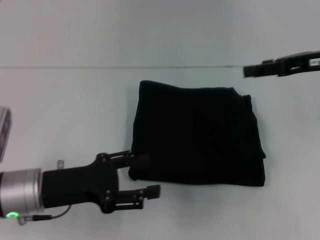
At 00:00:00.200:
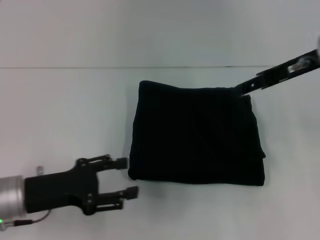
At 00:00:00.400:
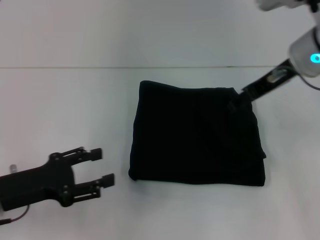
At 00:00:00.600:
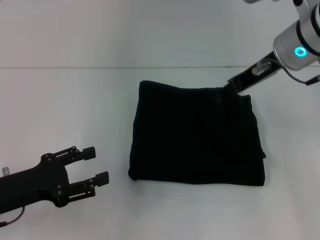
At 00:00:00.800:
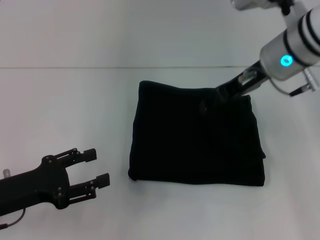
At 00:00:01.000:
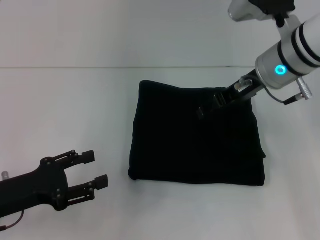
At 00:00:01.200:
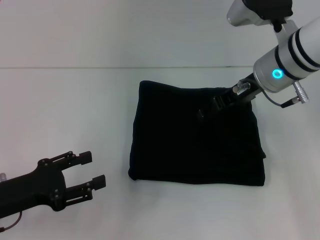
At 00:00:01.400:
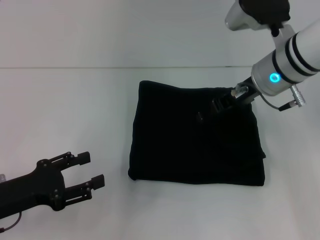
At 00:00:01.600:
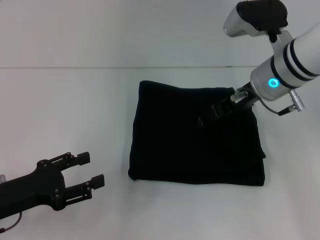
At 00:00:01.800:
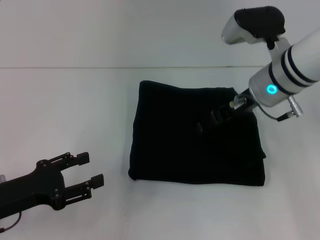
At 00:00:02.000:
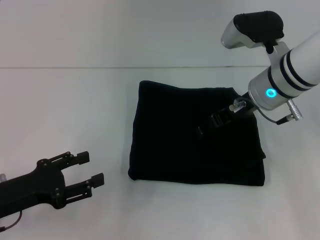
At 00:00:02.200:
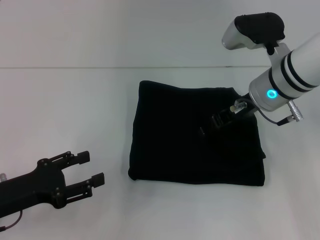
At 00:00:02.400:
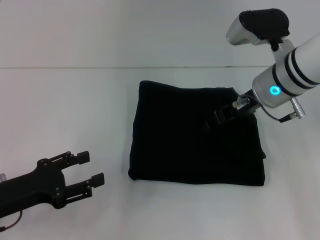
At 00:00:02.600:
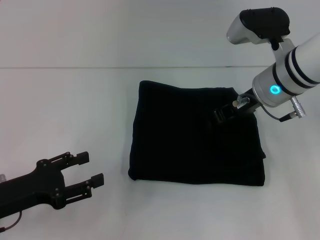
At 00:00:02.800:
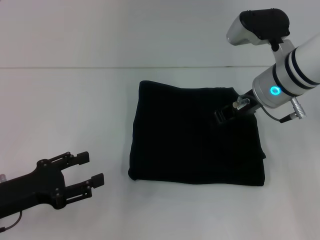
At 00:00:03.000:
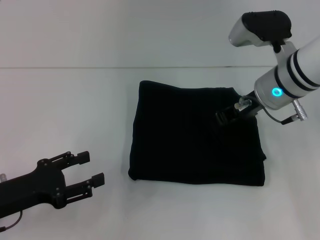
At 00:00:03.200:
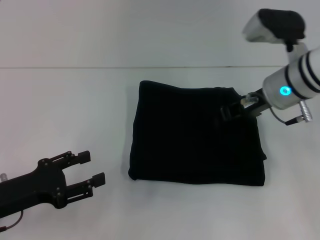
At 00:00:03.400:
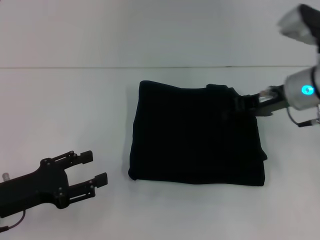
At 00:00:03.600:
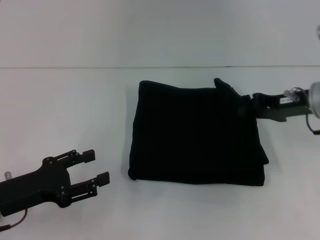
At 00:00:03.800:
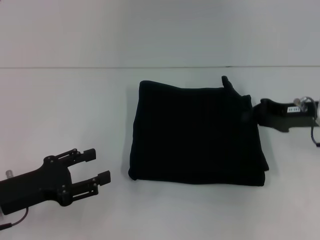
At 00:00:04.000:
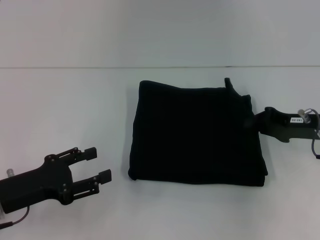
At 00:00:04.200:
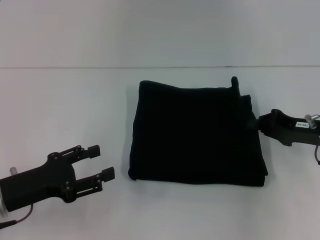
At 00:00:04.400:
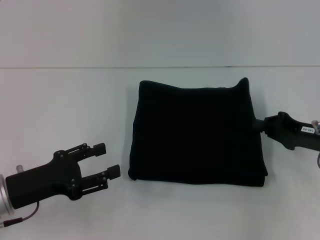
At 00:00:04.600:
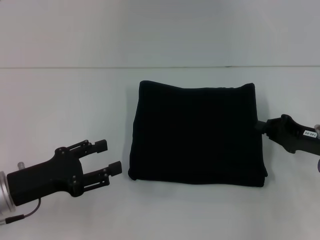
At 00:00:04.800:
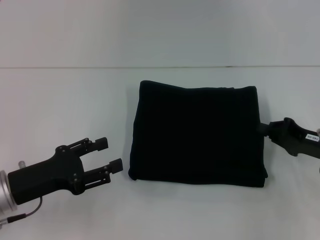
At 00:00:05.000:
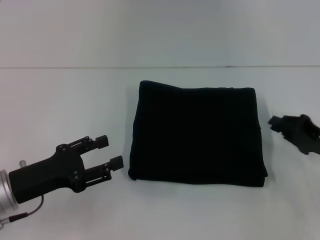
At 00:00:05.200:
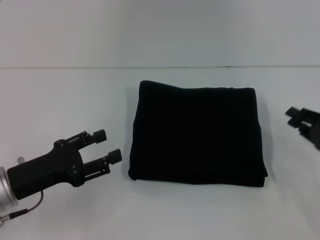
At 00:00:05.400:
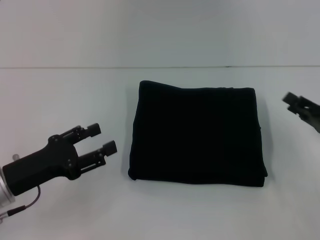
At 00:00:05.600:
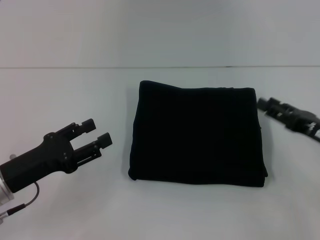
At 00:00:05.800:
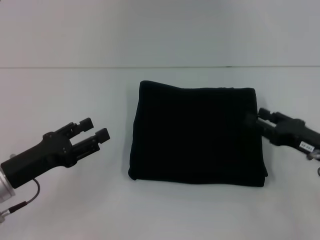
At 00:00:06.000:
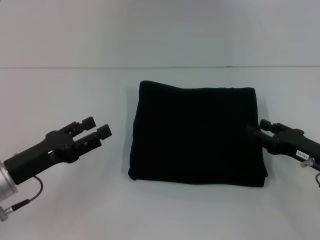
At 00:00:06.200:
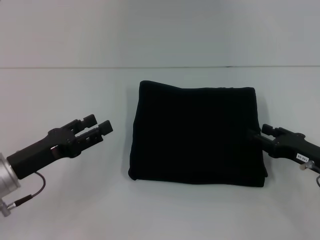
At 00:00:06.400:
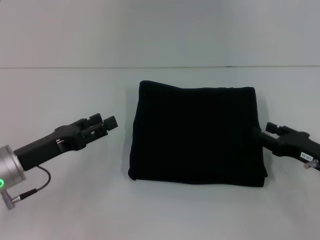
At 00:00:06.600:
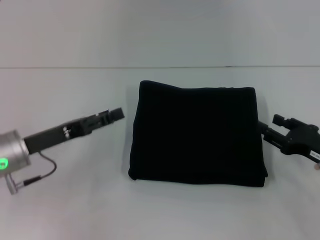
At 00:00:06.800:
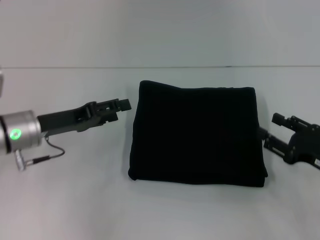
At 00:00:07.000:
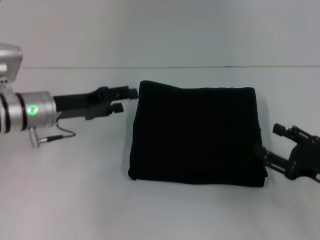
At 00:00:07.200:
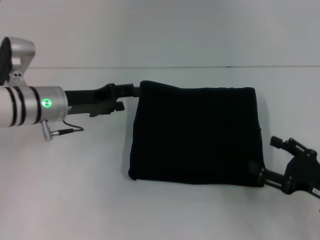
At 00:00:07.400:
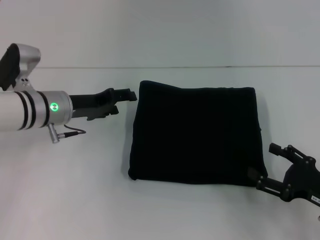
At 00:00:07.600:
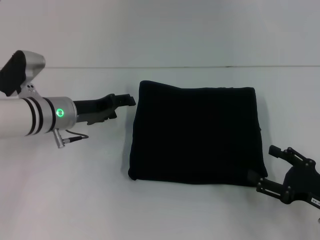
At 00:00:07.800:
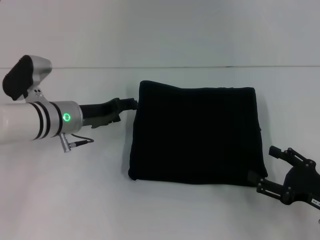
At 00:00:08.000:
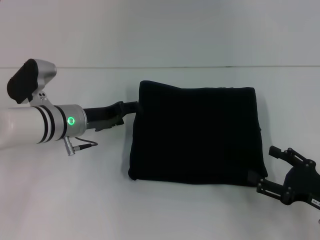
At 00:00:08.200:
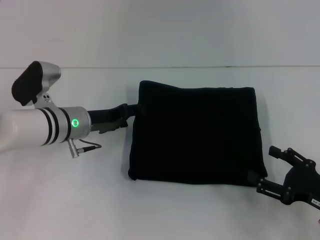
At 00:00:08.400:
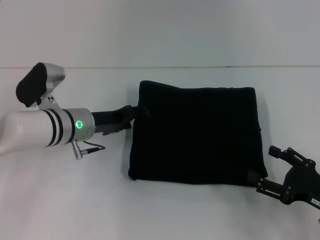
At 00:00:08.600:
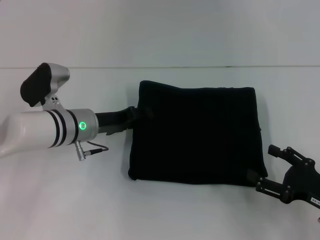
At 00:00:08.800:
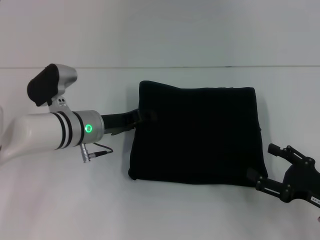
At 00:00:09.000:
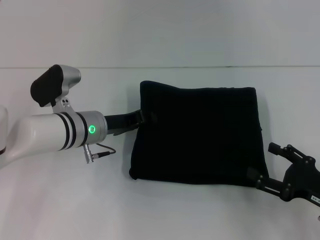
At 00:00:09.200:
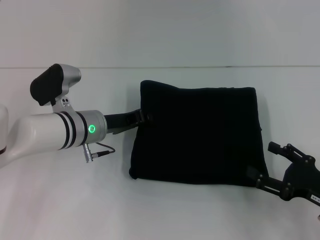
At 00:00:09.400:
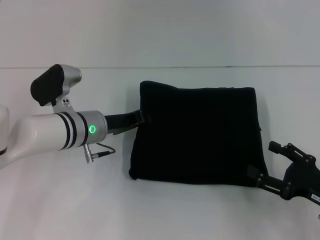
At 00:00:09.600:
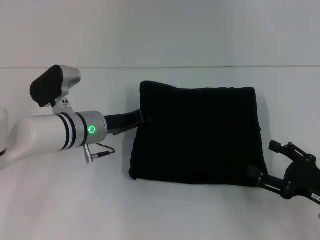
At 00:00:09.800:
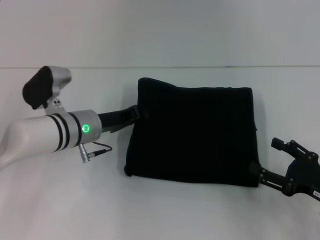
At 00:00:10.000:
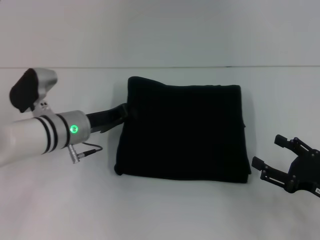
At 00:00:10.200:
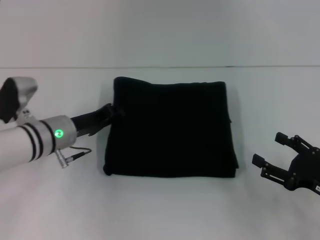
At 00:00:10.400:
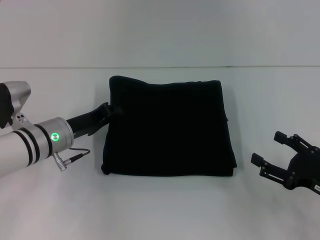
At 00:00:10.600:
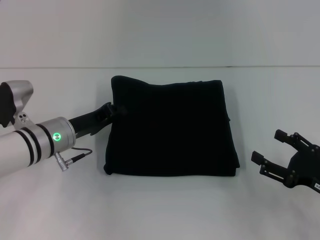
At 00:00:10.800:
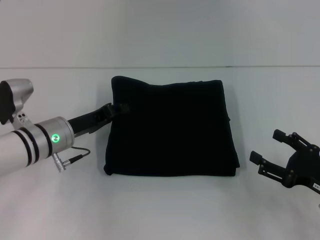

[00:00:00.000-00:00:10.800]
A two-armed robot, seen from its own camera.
00:00:00.000 to 00:00:01.600: The left gripper goes some 5 cm to the left, while the right gripper moves to the left, about 10 cm.
00:00:01.600 to 00:00:03.000: The right gripper closes its fingers.
00:00:03.000 to 00:00:04.600: The right gripper heads to the right, downward and backward, covering approximately 20 cm.
00:00:04.600 to 00:00:06.200: The right gripper opens.
00:00:06.200 to 00:00:07.800: The left gripper goes some 15 cm forward and to the right, while the right gripper moves backward, approximately 5 cm.
00:00:07.800 to 00:00:09.200: The left gripper closes its fingers.
00:00:09.200 to 00:00:10.800: The left gripper travels to the left by roughly 5 cm.

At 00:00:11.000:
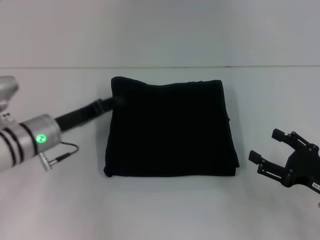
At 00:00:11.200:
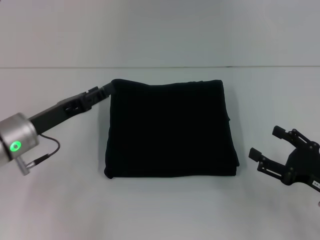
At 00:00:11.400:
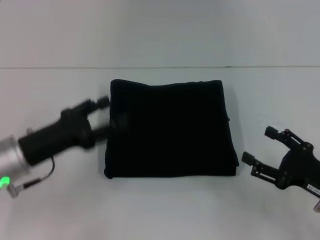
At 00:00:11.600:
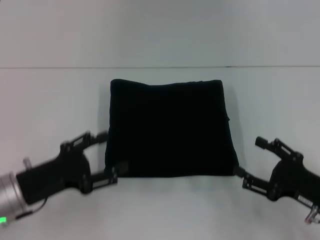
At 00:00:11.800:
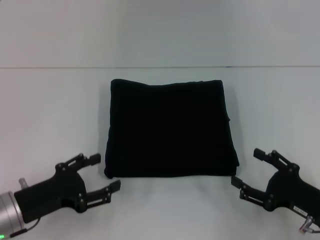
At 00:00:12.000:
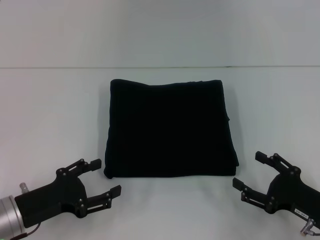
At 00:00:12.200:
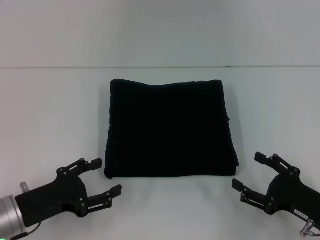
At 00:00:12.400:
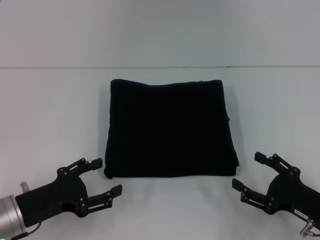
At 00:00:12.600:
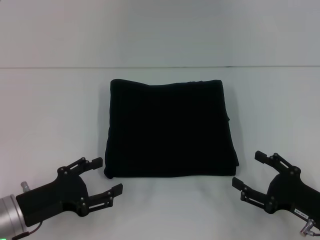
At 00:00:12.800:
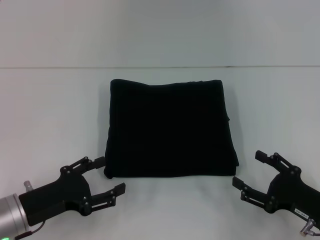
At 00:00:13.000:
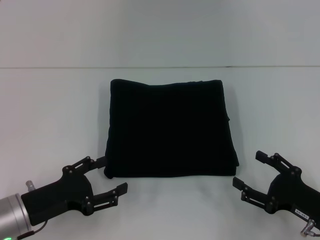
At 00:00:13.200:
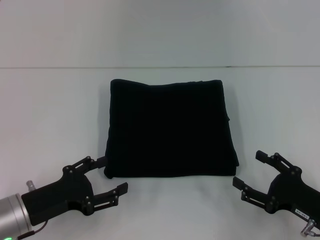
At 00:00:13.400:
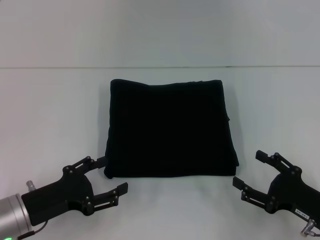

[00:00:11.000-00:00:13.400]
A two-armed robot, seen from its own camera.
00:00:11.000 to 00:00:12.200: The left gripper goes approximately 10 cm backward, and opens up.
00:00:12.200 to 00:00:13.400: Both grippers stay put.
